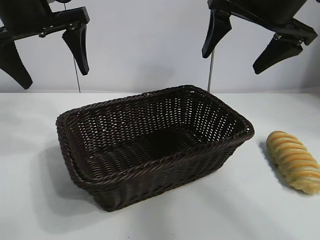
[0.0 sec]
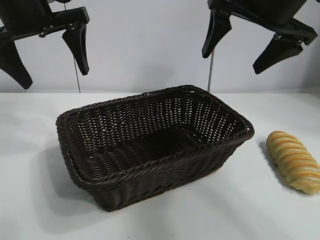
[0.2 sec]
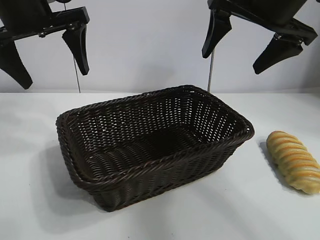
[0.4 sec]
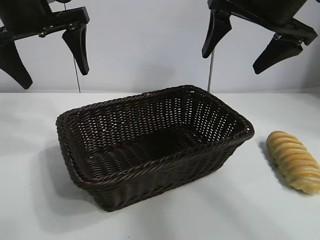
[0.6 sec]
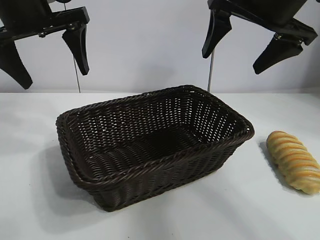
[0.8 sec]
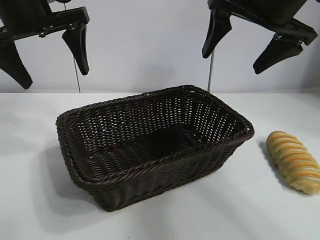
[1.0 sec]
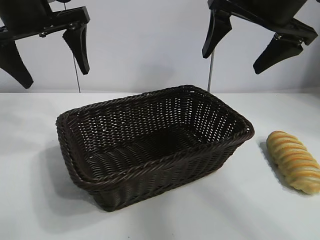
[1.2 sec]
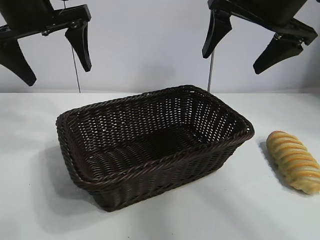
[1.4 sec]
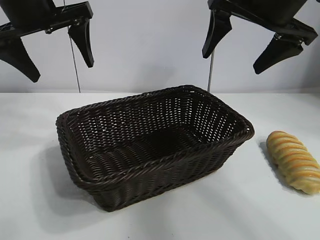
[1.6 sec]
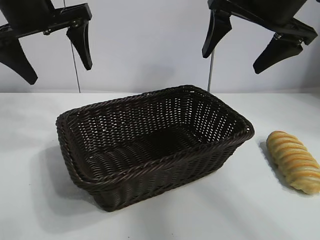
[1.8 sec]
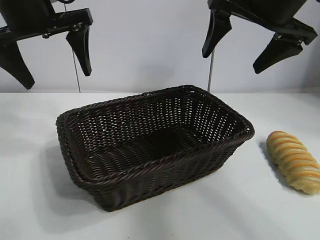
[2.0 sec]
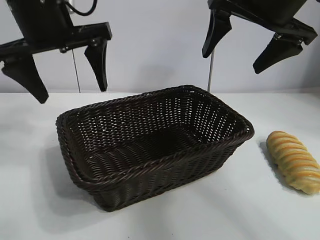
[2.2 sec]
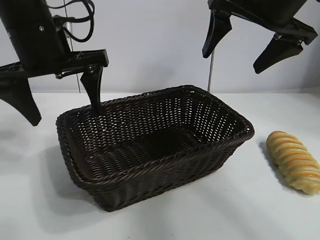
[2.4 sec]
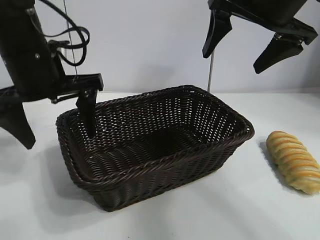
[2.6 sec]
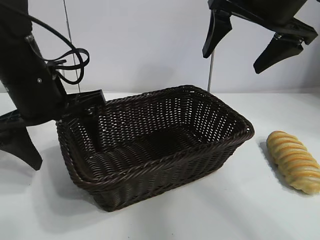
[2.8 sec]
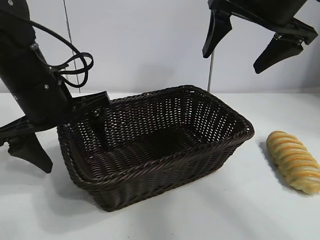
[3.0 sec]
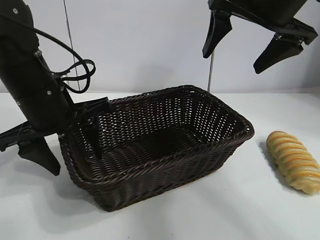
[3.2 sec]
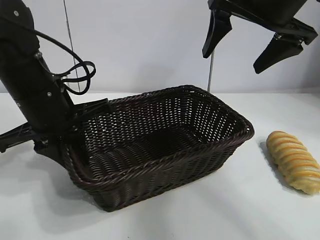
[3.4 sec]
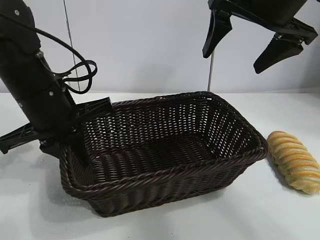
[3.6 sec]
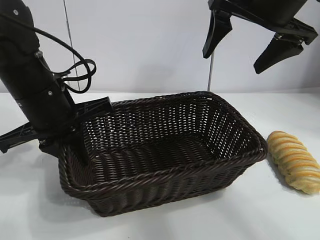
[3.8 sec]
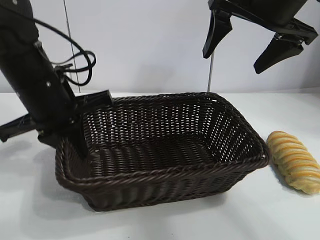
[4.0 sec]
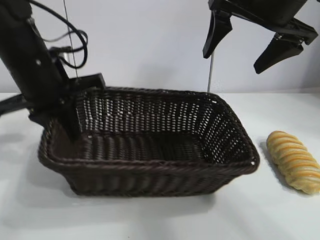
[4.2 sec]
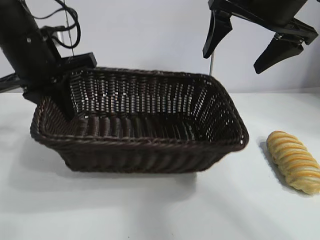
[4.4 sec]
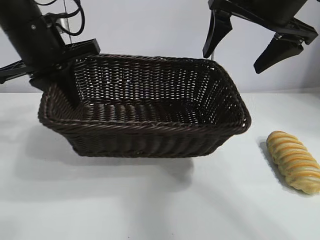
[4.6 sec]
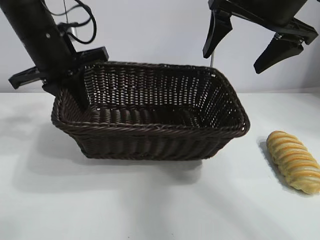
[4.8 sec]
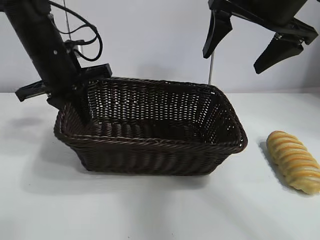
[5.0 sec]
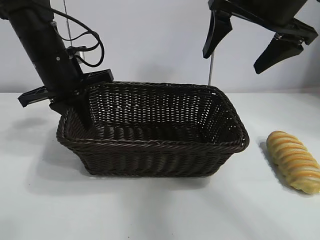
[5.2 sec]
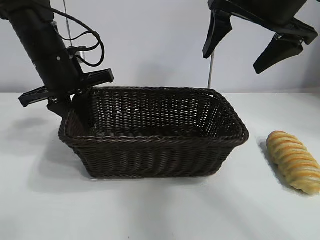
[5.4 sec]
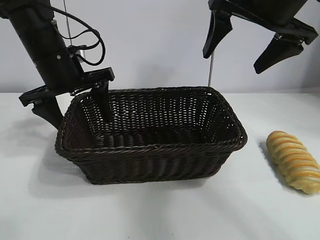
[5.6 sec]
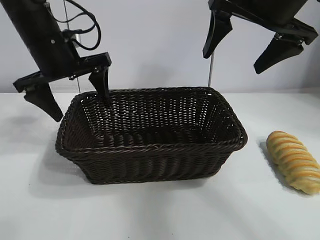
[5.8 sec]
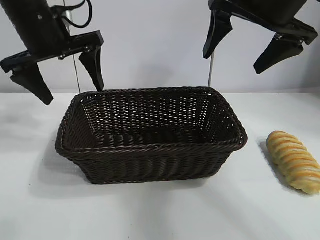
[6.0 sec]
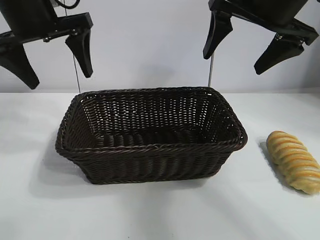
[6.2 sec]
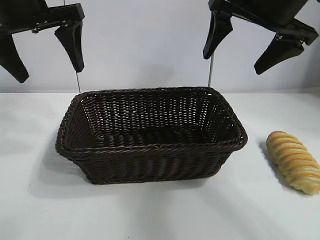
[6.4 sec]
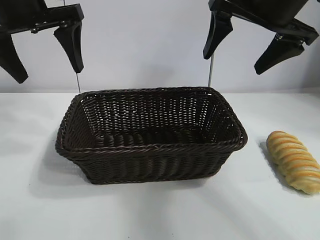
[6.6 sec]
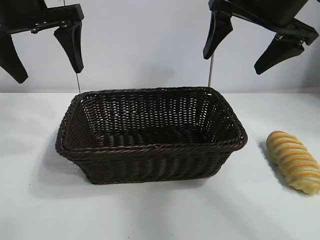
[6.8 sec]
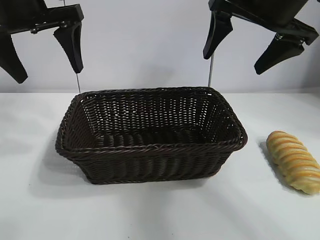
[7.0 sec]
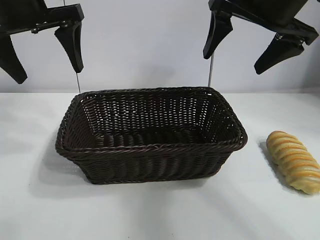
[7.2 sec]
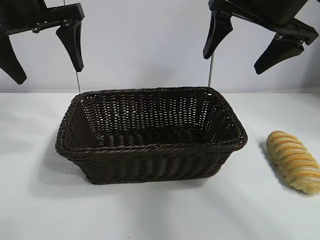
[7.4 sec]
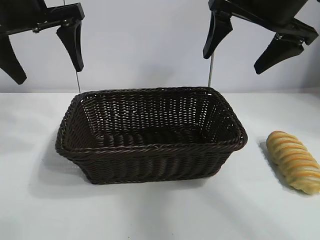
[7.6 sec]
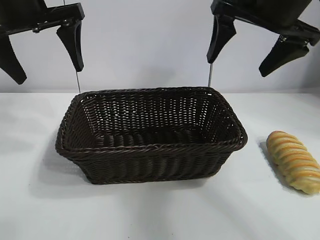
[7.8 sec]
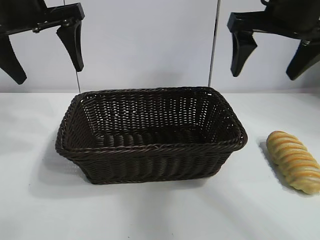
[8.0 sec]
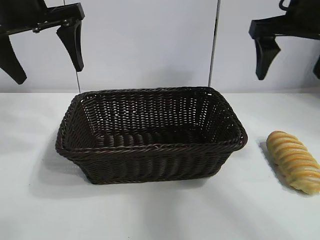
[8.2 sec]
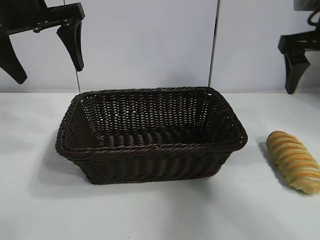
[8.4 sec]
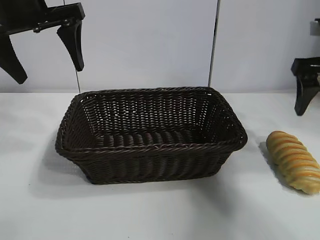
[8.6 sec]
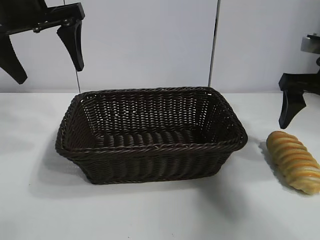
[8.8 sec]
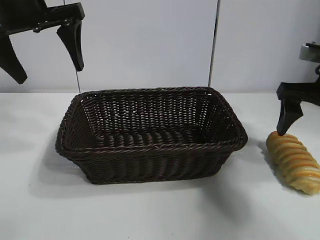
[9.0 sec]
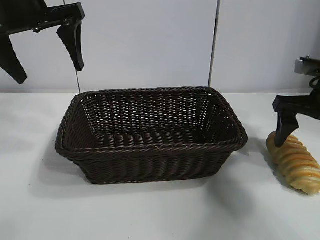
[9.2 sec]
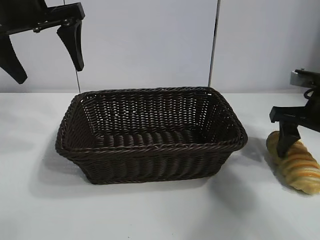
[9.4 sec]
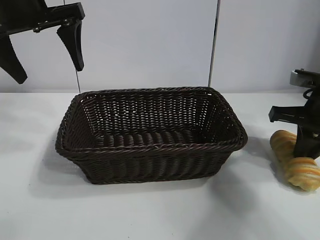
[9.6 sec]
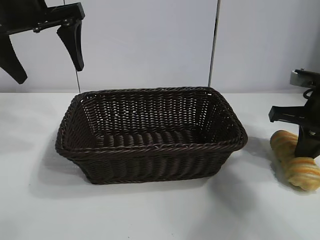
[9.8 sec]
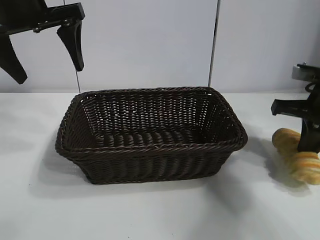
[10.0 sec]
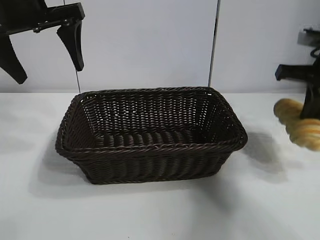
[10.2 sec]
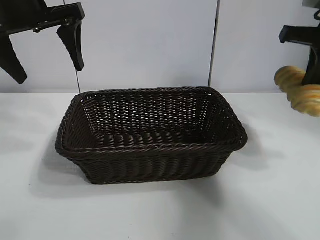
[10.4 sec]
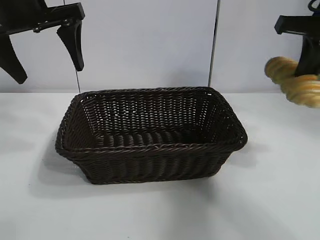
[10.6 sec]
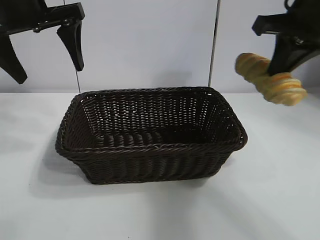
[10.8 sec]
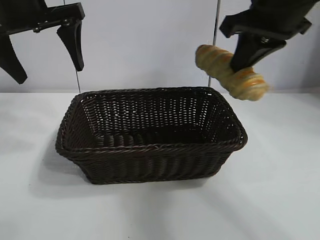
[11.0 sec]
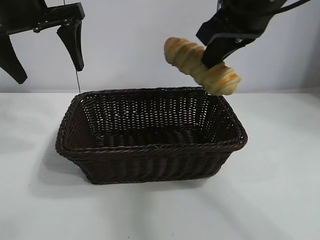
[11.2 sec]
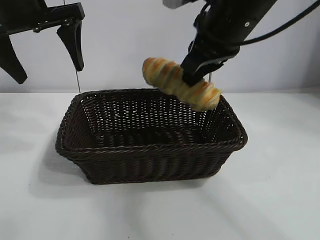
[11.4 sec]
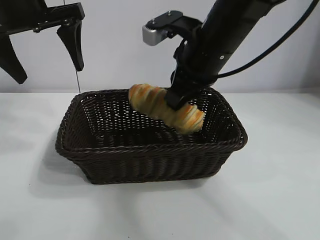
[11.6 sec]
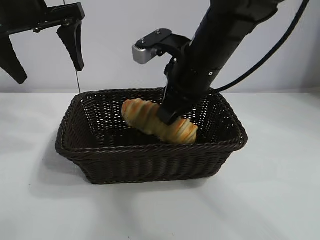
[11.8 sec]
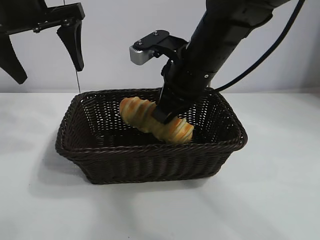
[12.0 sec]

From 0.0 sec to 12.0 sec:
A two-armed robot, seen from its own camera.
Task of the whole recording: pick up the long bread and put it into the basket.
Step, from 1.2 sec to 3.4 sec: Grasp the basket with the left gripper.
Step, from 3.6 sec to 5.6 sec: Place the basket in the center of the table with the left gripper.
Step, from 5.8 sec to 9.8 sec: Grasp the long bread with right gripper.
